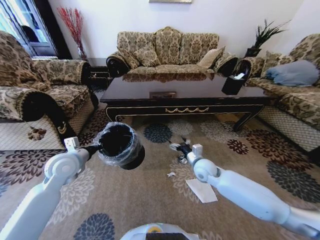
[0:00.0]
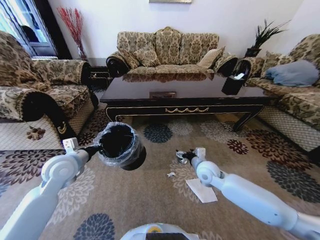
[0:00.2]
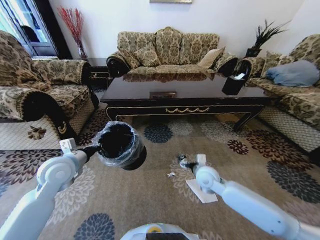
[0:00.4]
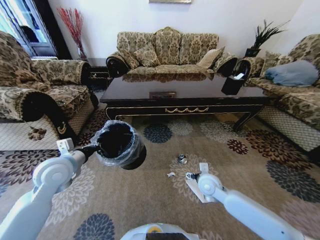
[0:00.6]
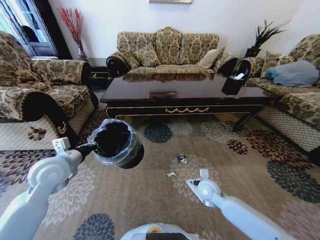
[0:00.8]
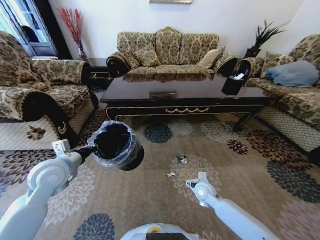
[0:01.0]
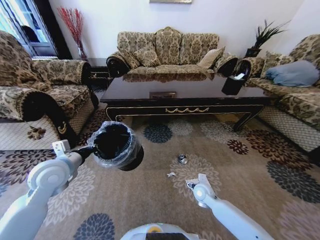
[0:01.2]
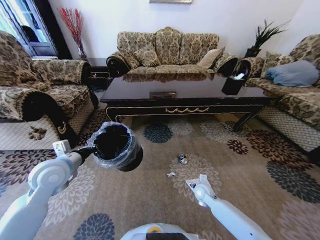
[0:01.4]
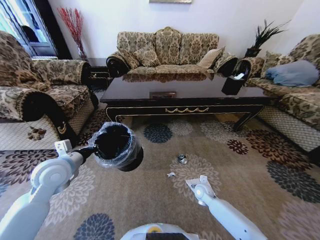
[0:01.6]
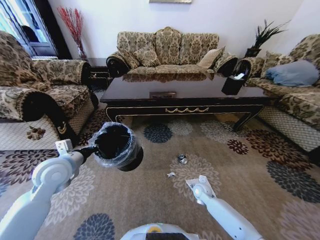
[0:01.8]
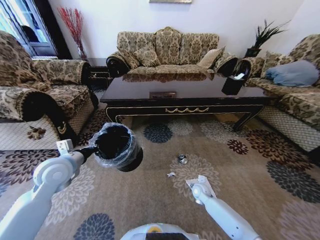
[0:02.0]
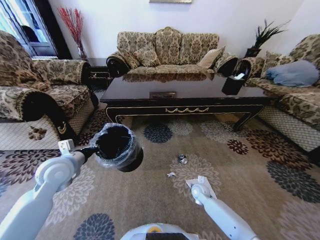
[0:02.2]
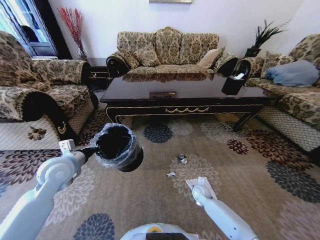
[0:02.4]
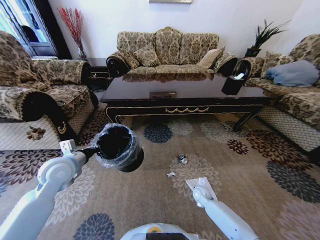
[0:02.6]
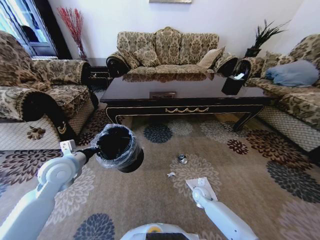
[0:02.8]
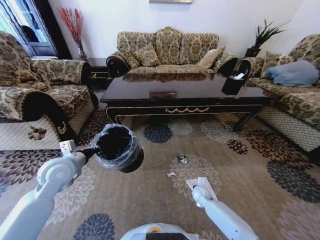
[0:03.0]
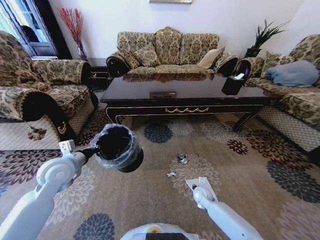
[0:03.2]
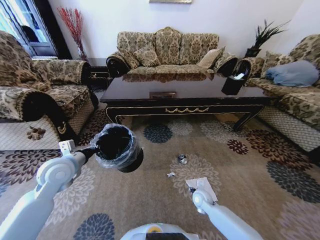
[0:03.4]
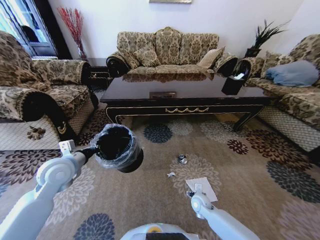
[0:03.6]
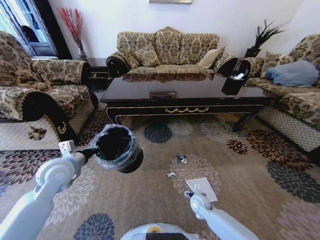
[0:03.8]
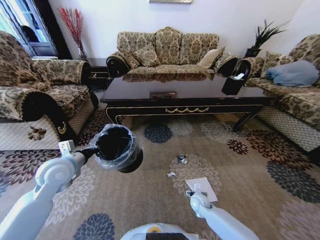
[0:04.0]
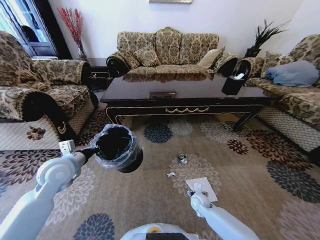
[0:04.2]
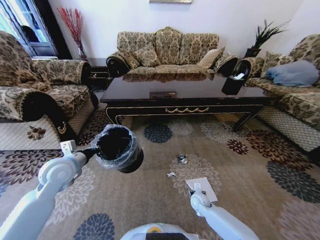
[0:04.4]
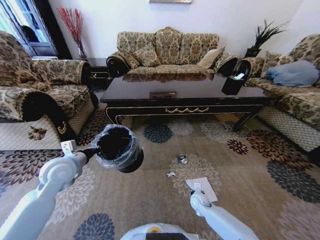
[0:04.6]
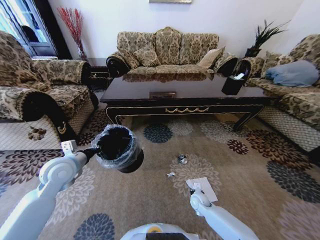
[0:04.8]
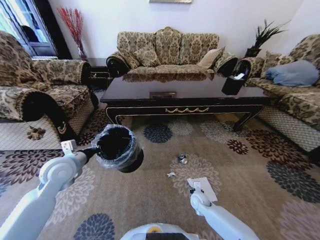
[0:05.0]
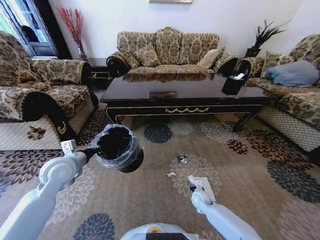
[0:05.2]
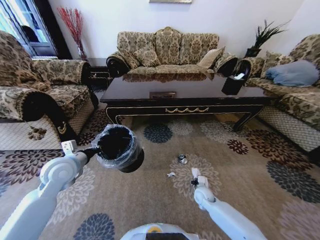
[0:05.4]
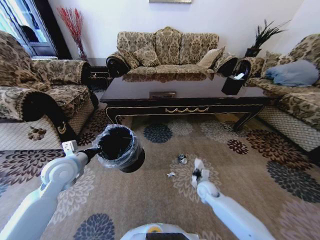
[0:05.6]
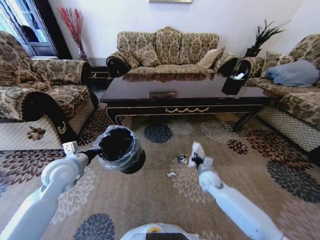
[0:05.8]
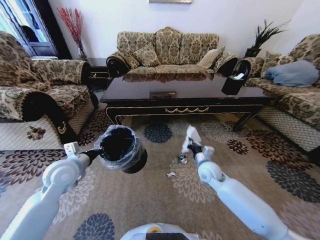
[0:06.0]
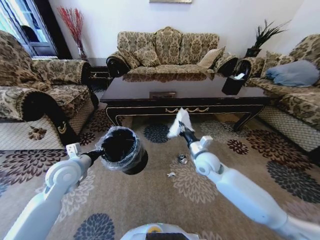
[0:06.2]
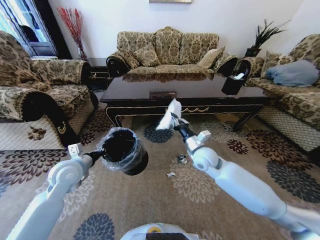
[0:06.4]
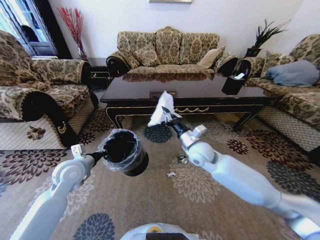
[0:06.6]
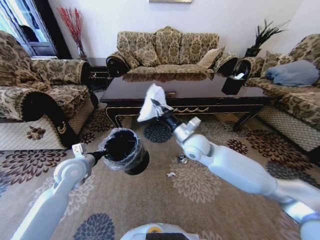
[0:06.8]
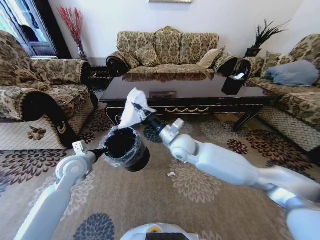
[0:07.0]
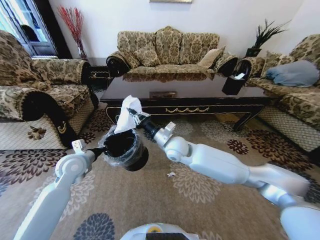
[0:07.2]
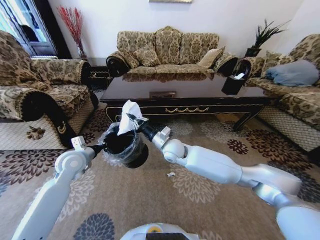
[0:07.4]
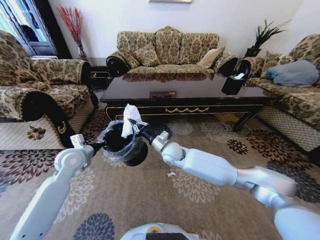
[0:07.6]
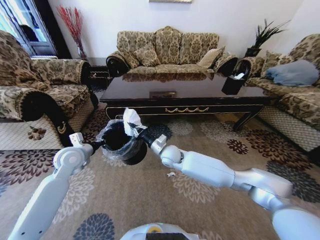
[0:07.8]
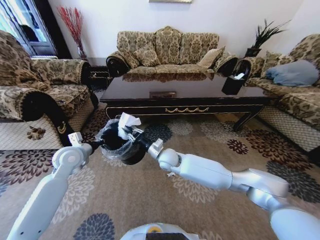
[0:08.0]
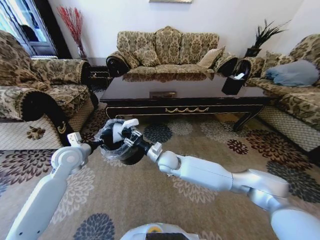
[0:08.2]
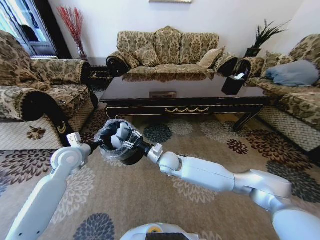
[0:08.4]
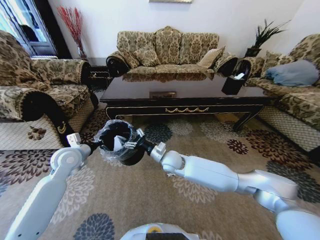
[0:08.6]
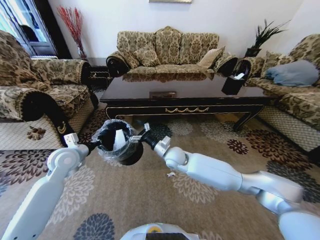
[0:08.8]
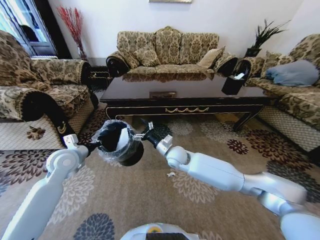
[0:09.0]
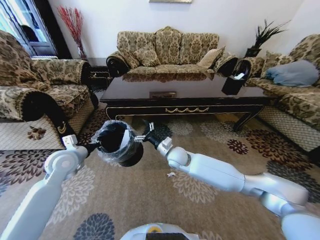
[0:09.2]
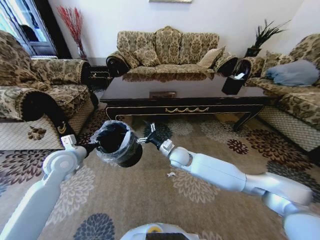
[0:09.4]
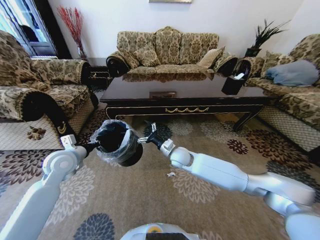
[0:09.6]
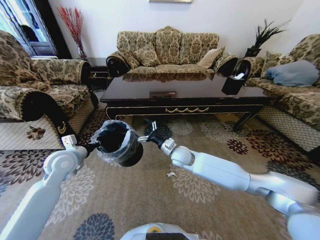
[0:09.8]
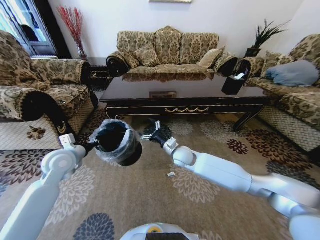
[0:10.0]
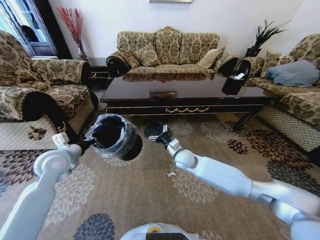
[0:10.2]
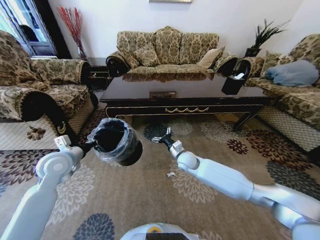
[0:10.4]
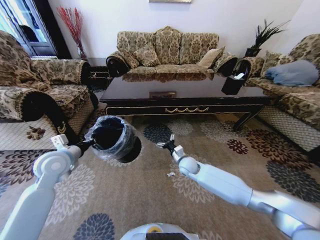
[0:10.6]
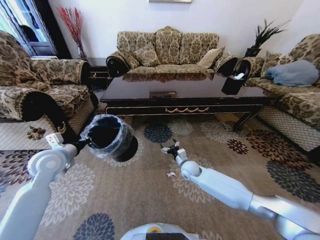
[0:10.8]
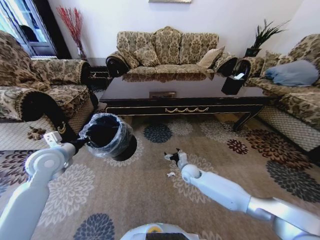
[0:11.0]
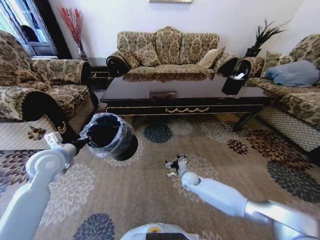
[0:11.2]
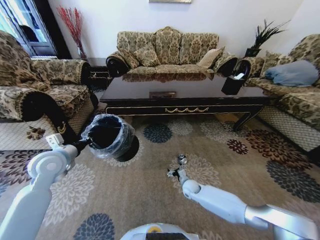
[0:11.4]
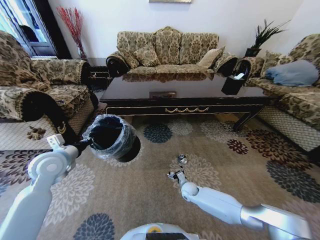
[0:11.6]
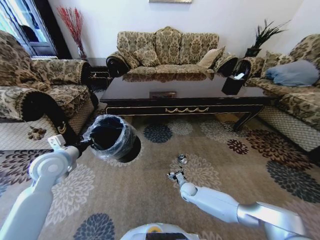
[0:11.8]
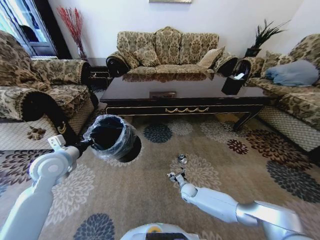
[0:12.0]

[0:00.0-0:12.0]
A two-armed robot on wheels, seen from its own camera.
Task of the whole recording: Move to the front of the table and pick up the trash from the floor, then place it into the trash bin.
0:00.0 to 0:01.6: The right gripper heads downward, covering roughly 20 cm.
0:01.6 to 0:03.0: The right gripper closes its fingers.
0:03.0 to 0:04.4: The right gripper opens up.
0:04.4 to 0:06.0: The right gripper moves upward, roughly 20 cm, and closes up.
0:06.0 to 0:07.6: The left gripper goes about 5 cm forward, while the right gripper moves to the left, about 15 cm.
0:07.6 to 0:09.0: The right gripper opens up.
0:09.0 to 0:10.4: The right gripper is displaced to the right and downward by approximately 10 cm.
0:10.4 to 0:12.0: The right gripper is displaced downward by roughly 25 cm.

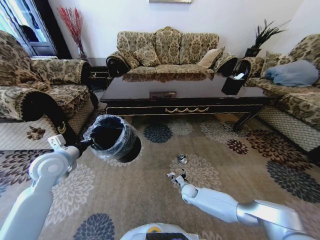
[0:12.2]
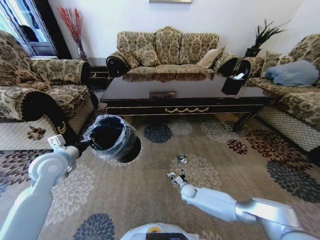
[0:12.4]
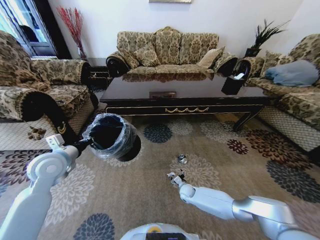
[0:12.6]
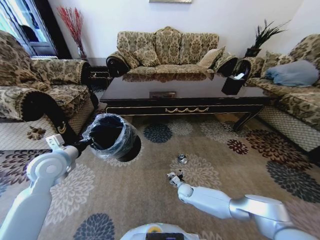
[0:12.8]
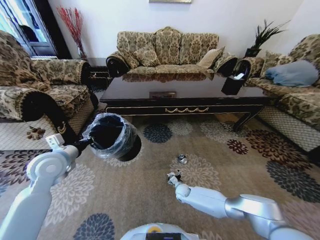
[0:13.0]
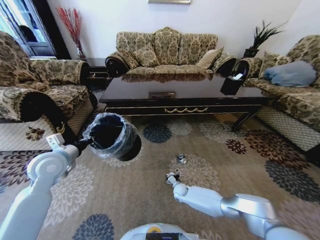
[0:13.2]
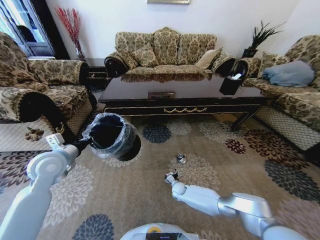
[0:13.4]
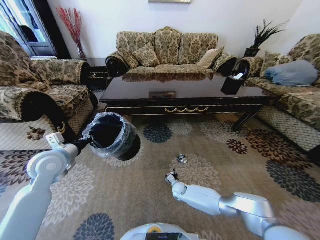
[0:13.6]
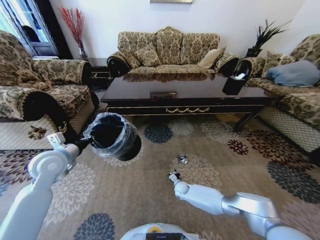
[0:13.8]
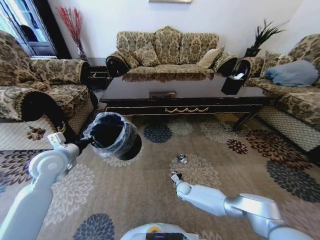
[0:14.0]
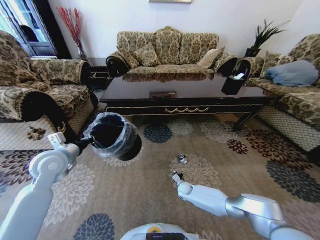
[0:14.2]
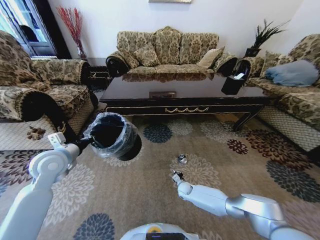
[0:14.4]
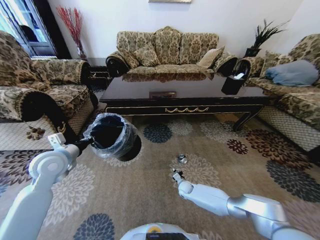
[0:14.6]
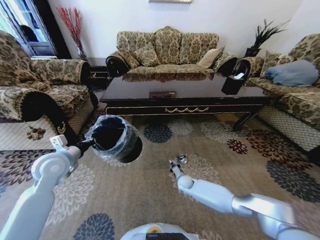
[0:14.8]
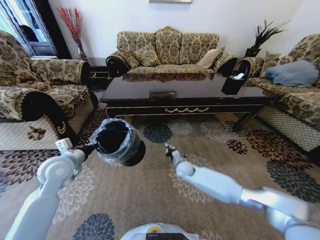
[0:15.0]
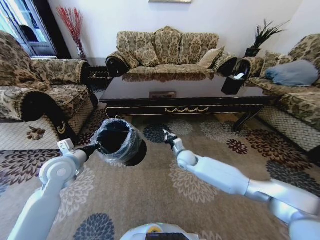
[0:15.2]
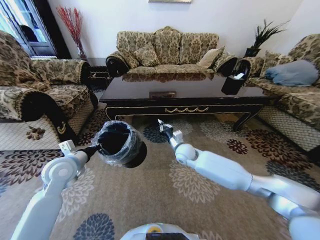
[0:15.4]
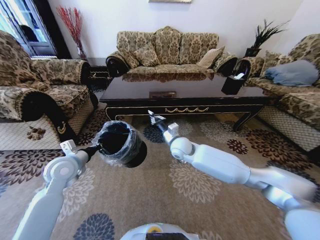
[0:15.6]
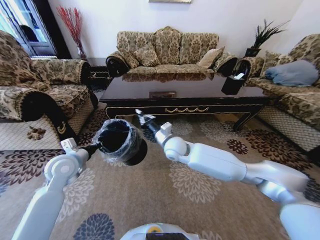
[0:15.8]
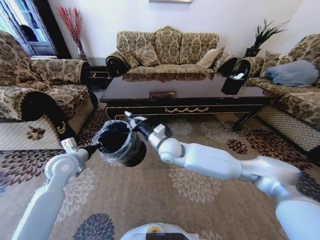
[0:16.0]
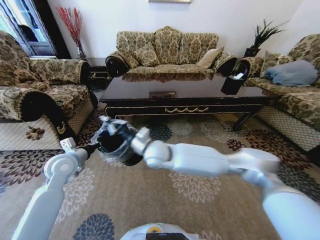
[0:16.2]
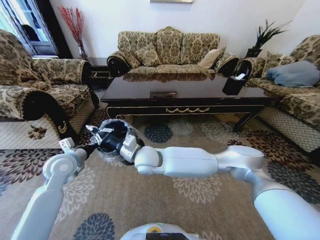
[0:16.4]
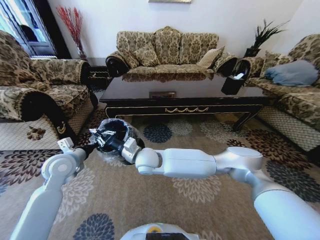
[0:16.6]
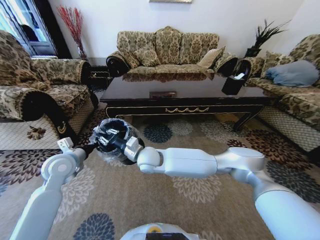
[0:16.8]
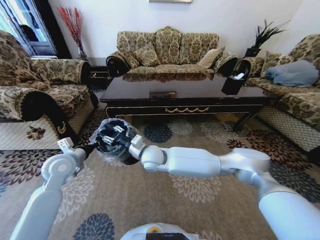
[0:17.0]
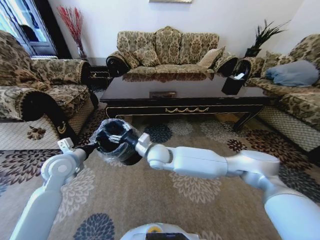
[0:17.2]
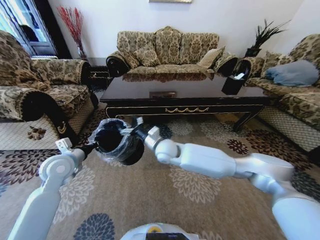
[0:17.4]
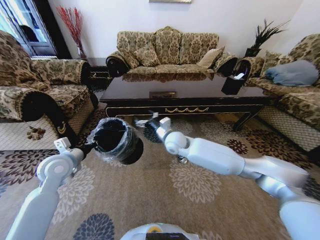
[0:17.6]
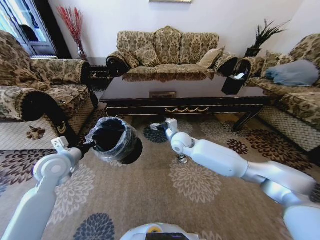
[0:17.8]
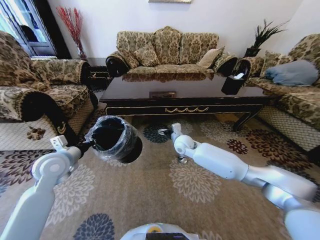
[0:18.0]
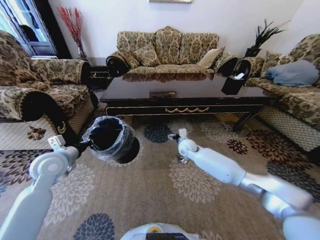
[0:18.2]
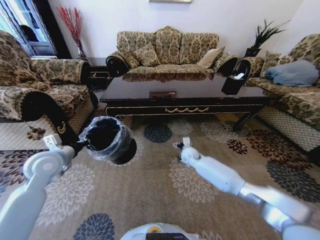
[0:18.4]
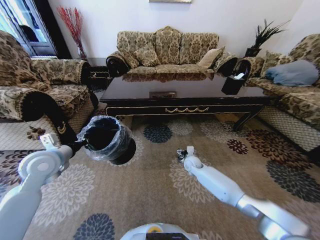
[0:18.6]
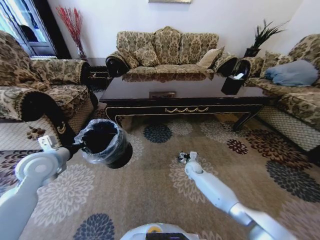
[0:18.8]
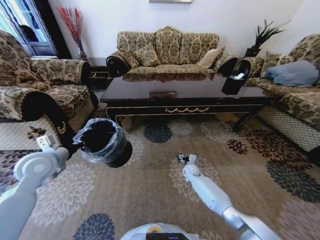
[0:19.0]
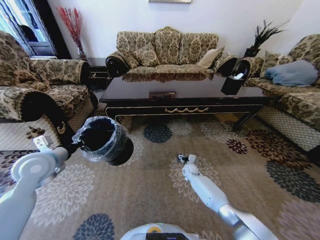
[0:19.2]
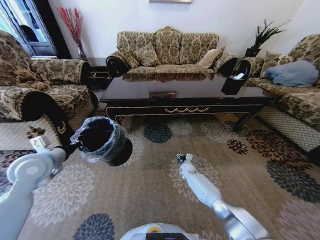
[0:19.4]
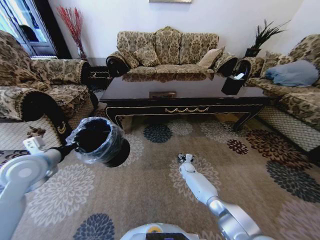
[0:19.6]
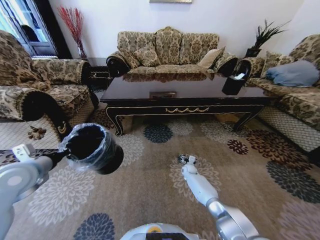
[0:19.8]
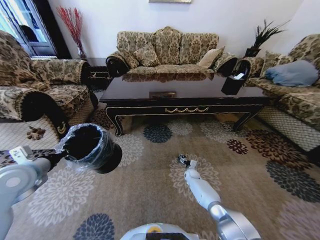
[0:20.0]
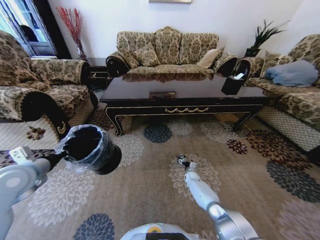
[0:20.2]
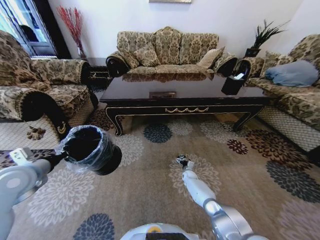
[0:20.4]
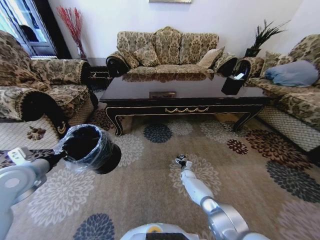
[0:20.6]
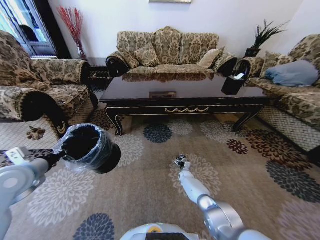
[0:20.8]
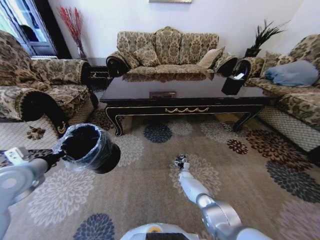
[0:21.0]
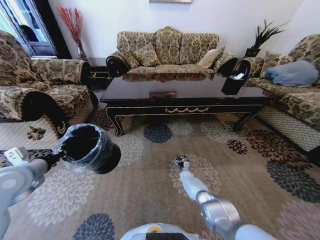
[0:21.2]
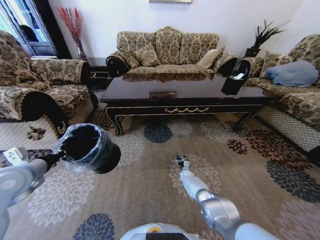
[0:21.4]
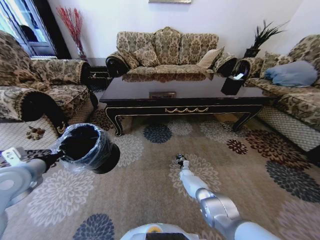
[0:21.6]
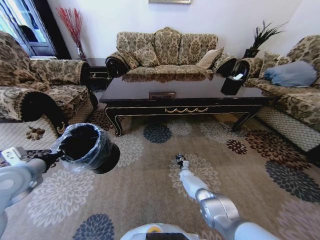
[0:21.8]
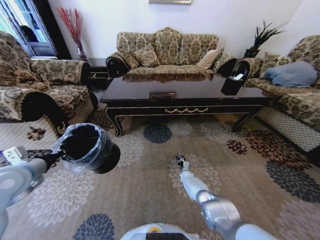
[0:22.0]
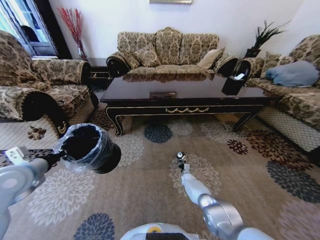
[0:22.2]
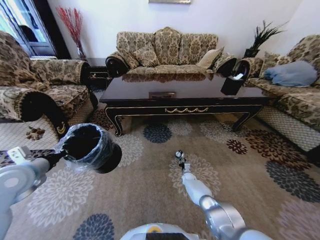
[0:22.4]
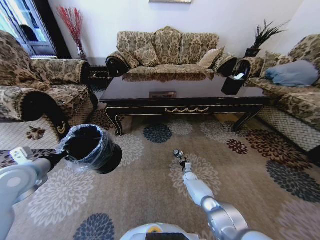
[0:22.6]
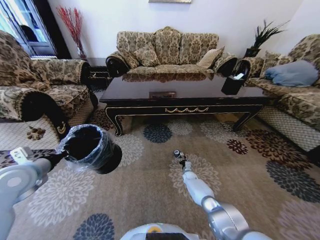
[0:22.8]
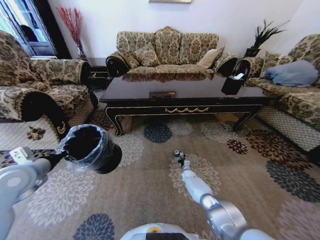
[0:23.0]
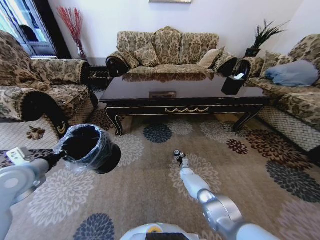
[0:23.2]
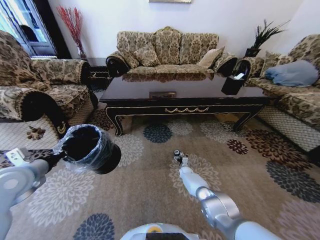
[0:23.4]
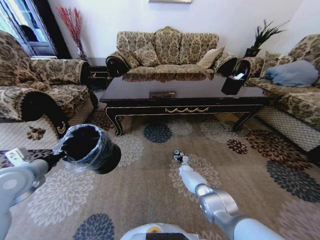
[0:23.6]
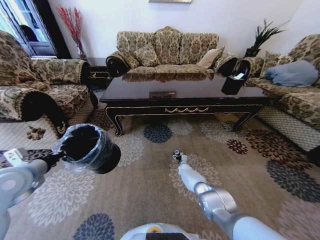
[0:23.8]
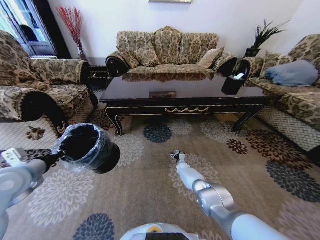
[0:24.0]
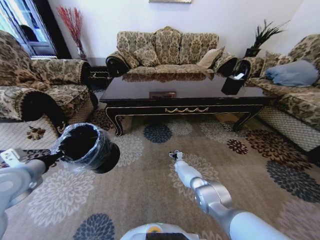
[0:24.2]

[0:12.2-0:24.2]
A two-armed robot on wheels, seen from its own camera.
Task of the whole recording: Move to the front of the table and pick up the trash from the floor, then place it into the trash bin.
0:12.2 to 0:13.8: The right gripper closes up.
0:13.8 to 0:15.2: The right gripper goes some 25 cm upward, and closes.
0:15.2 to 0:16.6: The right gripper goes approximately 25 cm to the left, upward and backward.
0:16.6 to 0:18.2: The right gripper goes about 25 cm to the right and forward, and opens.
0:18.2 to 0:19.8: The right gripper goes some 25 cm downward; the left gripper is displaced backward by roughly 5 cm.
0:19.8 to 0:21.2: The right gripper heads downward, covering roughly 5 cm.
0:21.2 to 0:22.6: The right gripper closes.
0:22.6 to 0:24.2: The right gripper heads forward and to the left, covering about 10 cm, and opens its fingers.
